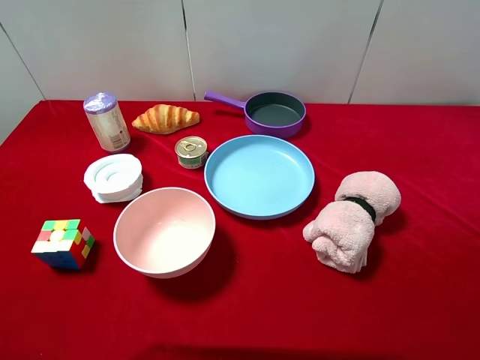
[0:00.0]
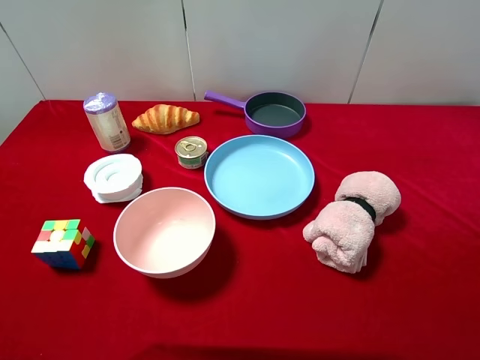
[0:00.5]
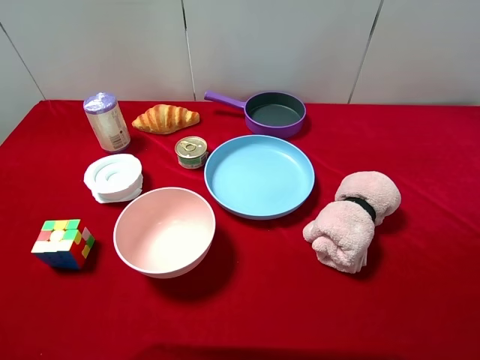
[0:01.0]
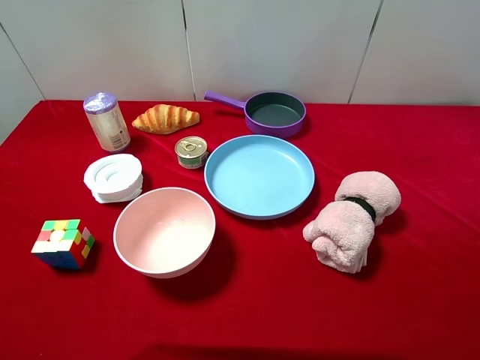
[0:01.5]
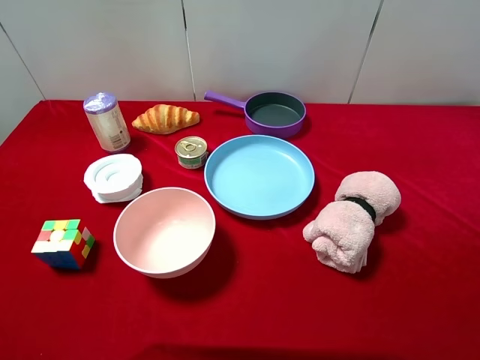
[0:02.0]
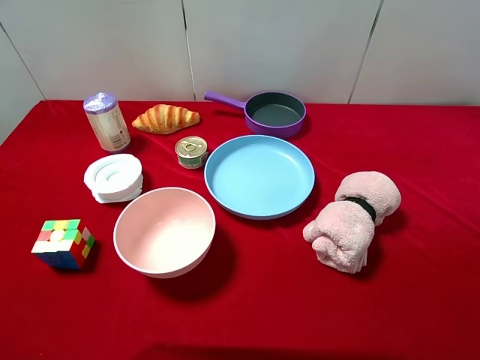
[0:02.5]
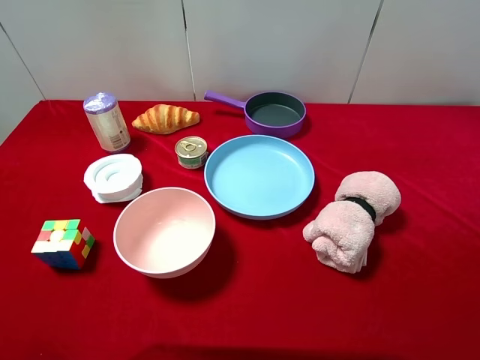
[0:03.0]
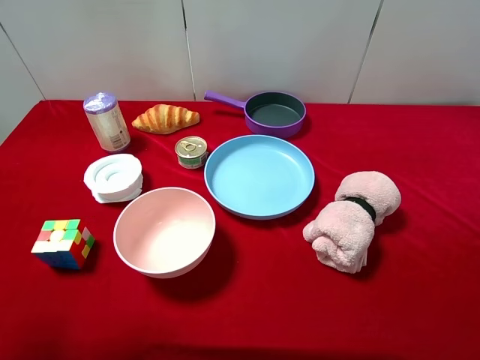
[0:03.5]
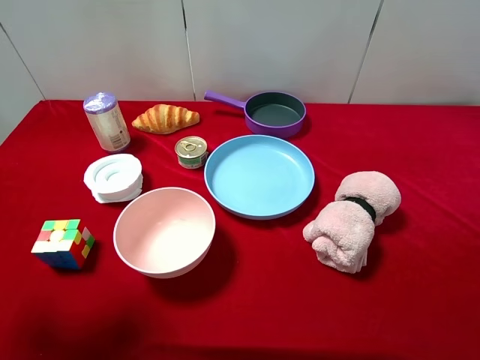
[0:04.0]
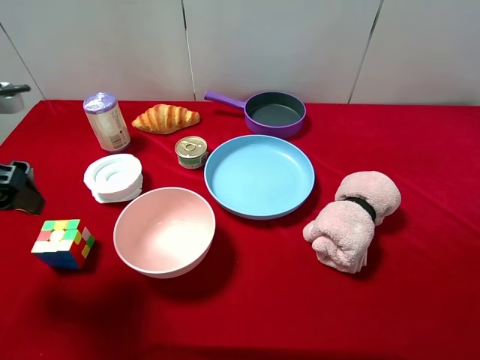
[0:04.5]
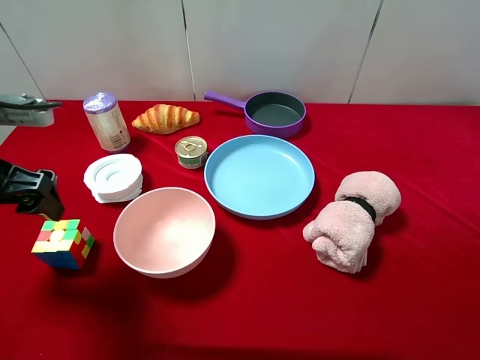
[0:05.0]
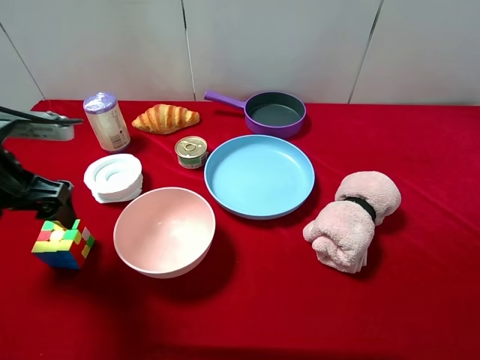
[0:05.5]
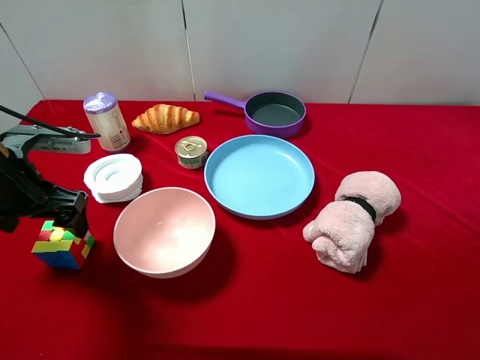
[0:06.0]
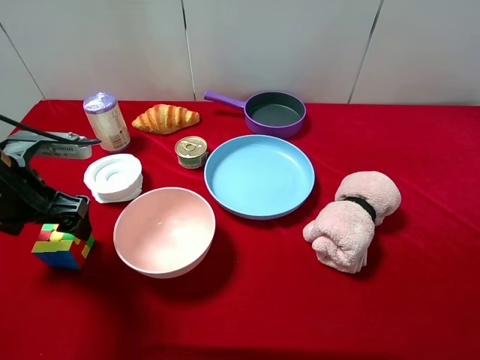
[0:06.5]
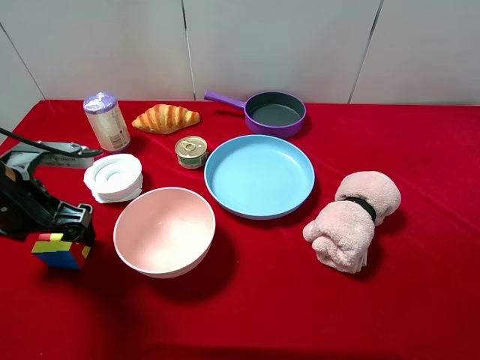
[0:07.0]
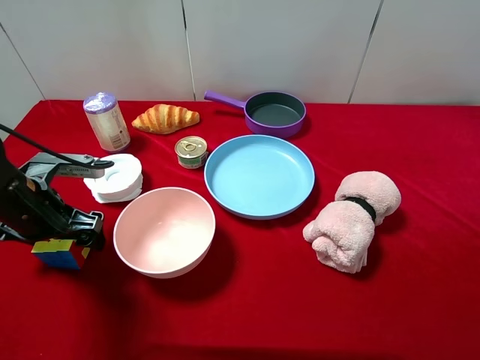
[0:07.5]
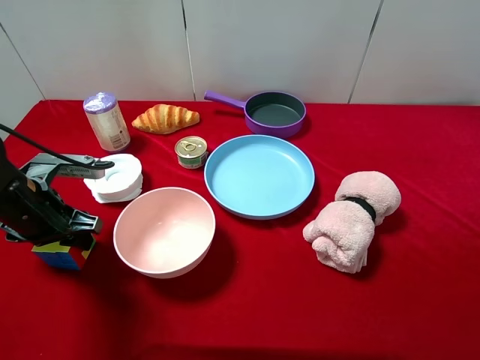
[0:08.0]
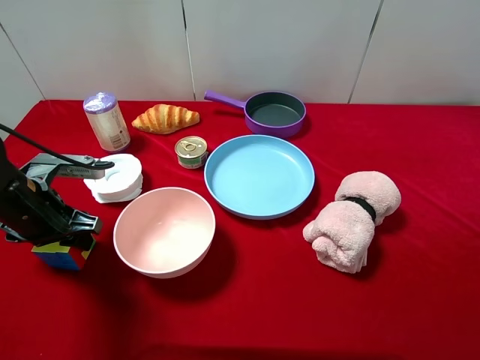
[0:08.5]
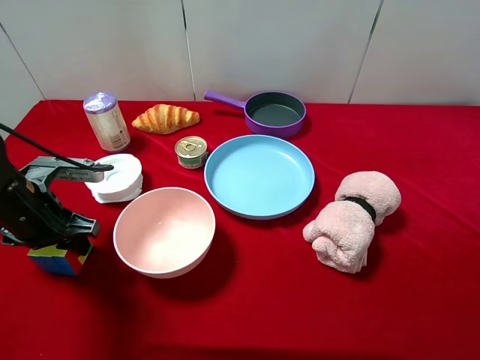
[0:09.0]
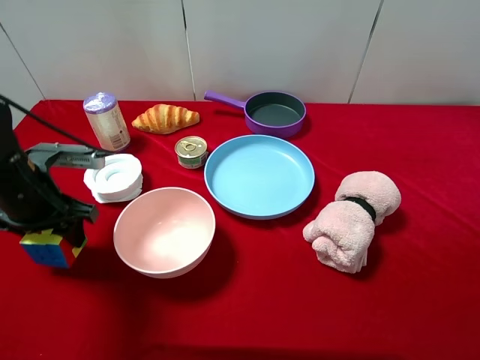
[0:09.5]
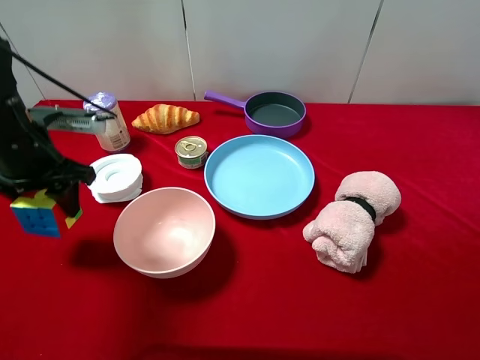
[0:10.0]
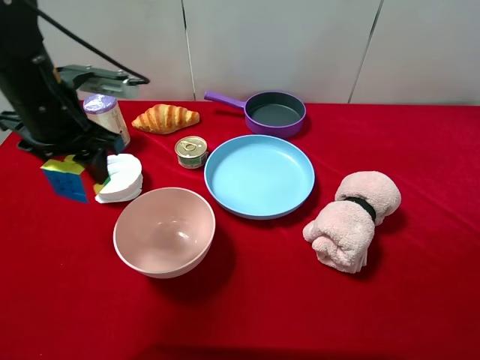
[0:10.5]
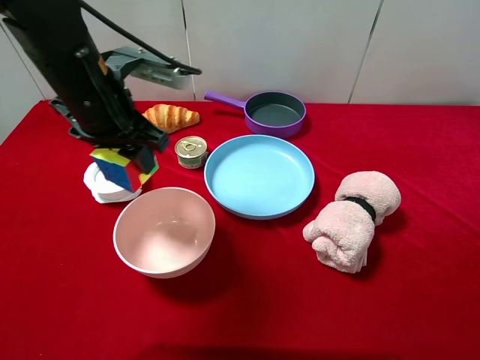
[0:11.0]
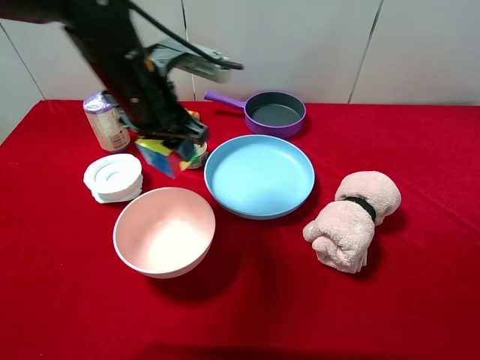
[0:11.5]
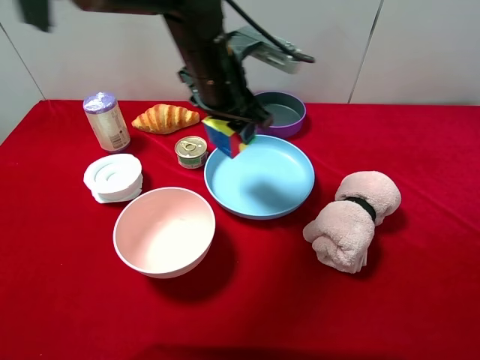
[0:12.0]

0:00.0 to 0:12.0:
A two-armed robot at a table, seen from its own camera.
Task of the whole recording: pick up an item with a gripper and place it in a random container on the desktop.
0:00.0 to 0:02.0: Both grippers stay put.
0:02.0 to 0:04.0: The left gripper is displaced forward by roughly 15 cm.
0:04.0 to 0:06.0: The left gripper heads downward and forward, covering some 15 cm.
0:06.0 to 0:08.0: The left gripper moves downward, about 5 cm, and closes.
0:08.0 to 0:10.0: The left gripper shifts some 5 cm upward.
0:10.0 to 0:12.0: The left gripper is displaced to the right by roughly 25 cm.

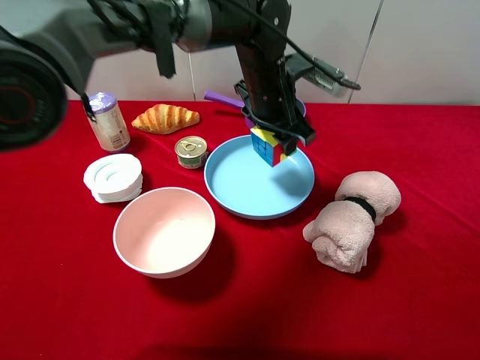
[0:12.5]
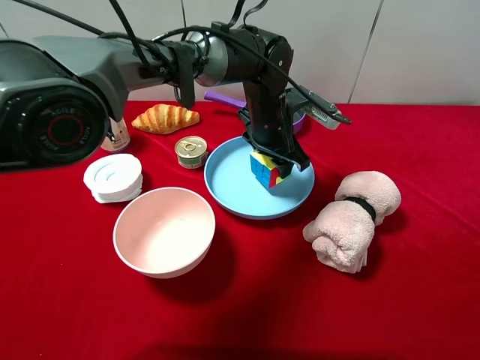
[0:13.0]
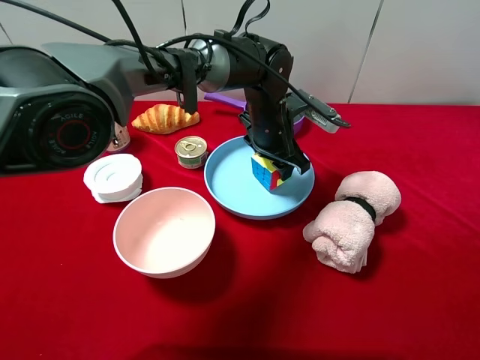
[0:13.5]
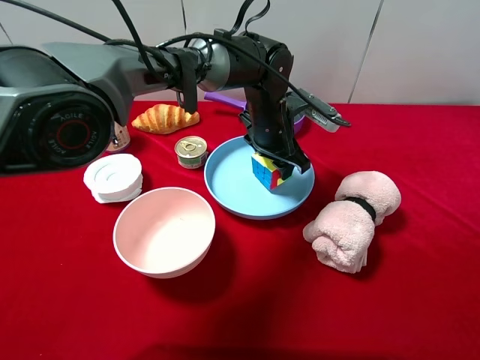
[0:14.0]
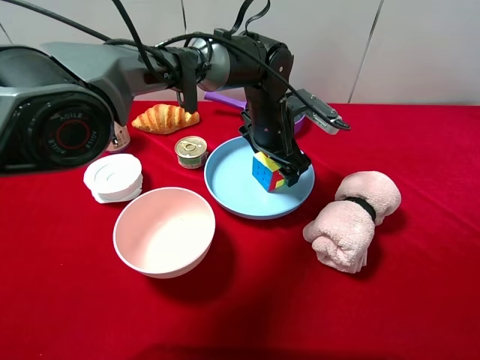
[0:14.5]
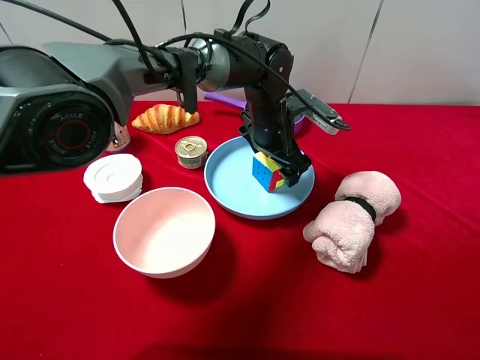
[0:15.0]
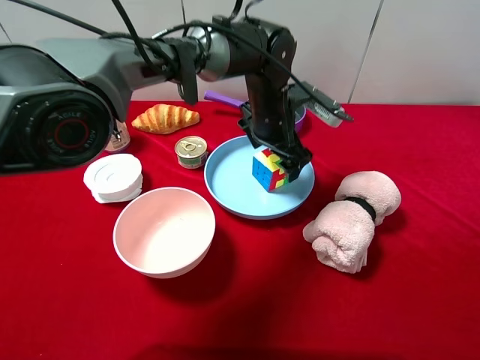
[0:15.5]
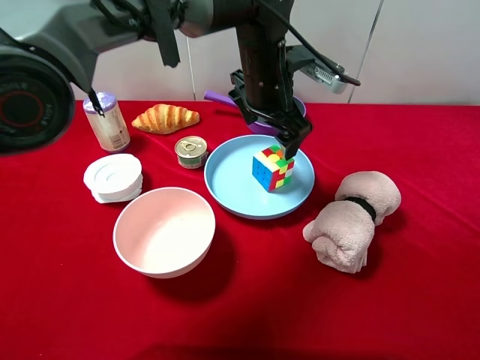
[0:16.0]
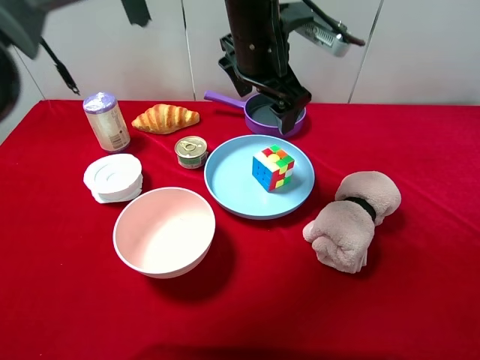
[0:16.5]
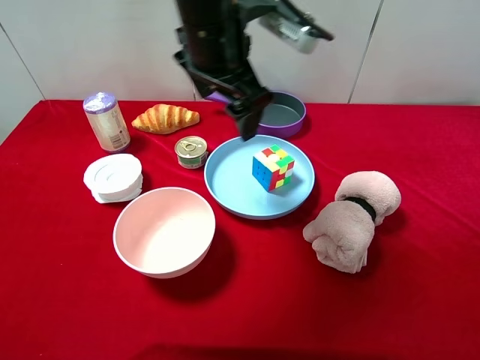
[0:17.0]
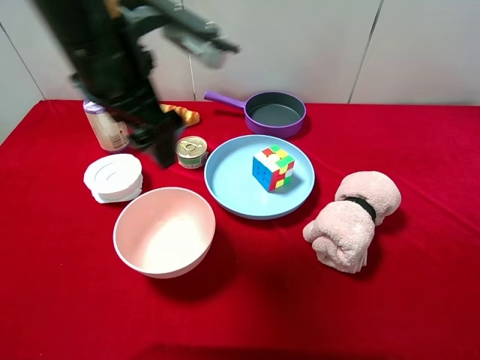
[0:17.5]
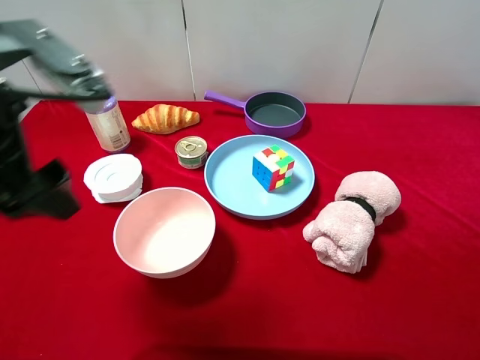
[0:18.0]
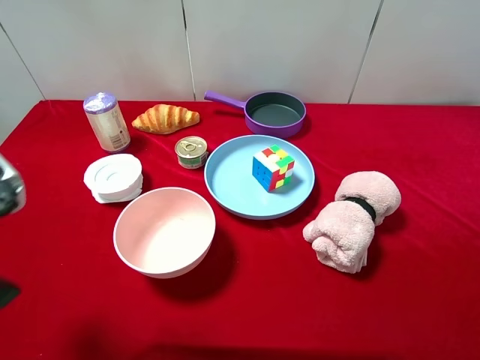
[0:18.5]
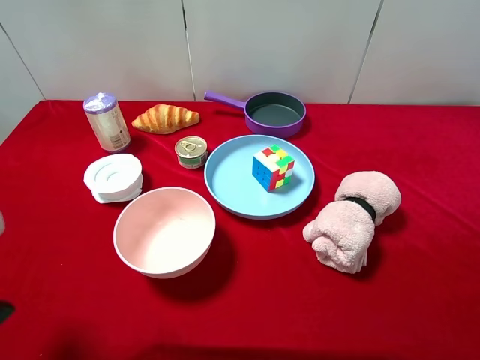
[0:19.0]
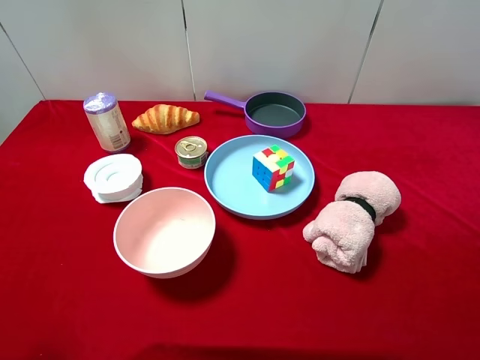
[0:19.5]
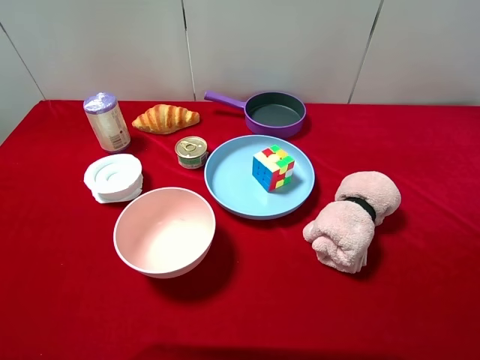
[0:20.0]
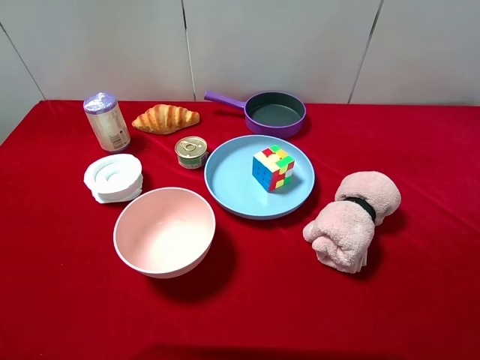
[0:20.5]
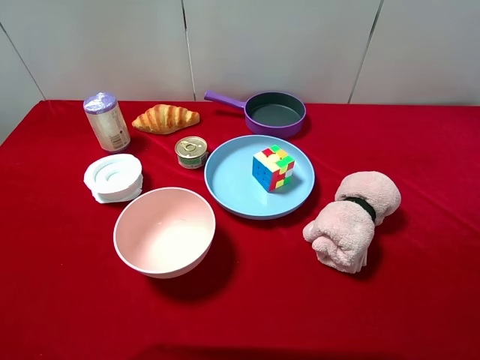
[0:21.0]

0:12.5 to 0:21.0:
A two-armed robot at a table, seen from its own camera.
Task of the whole recording: pick up an item with a gripper and place it in a random container on the desktop.
0:12.5 to 0:14.5: The left gripper moves downward, approximately 5 cm, and opens up.
0:14.5 to 0:16.5: The left gripper moves upward, some 15 cm.
0:16.5 to 0:19.0: The left gripper shifts some 40 cm to the left and backward.

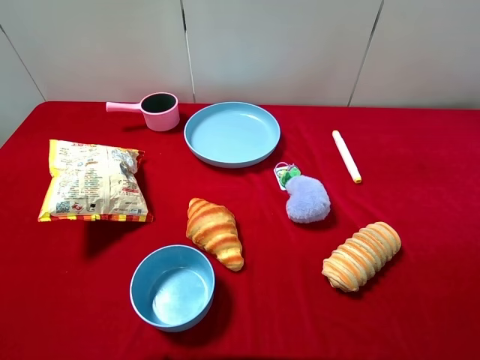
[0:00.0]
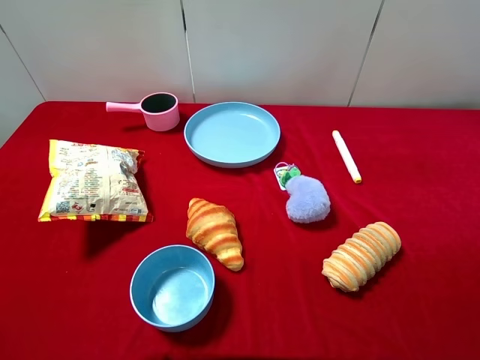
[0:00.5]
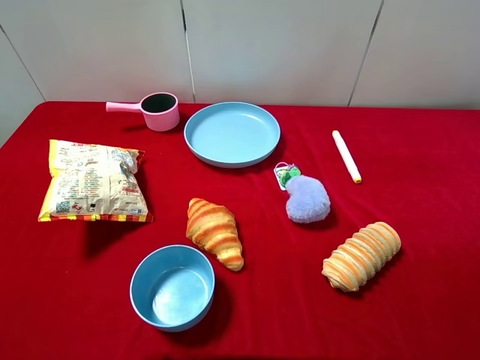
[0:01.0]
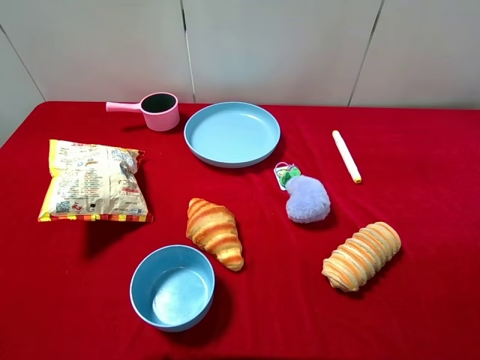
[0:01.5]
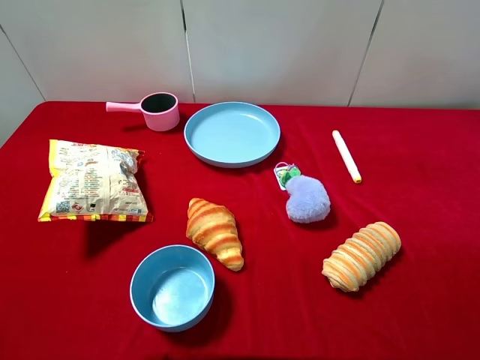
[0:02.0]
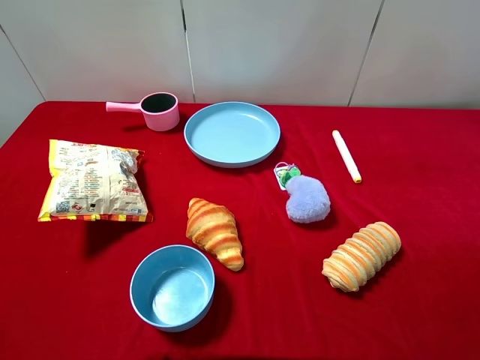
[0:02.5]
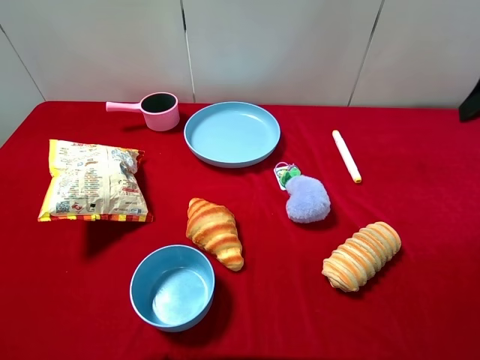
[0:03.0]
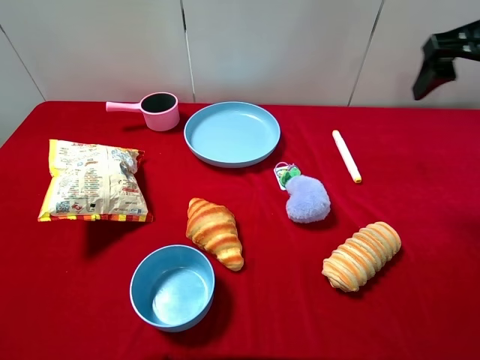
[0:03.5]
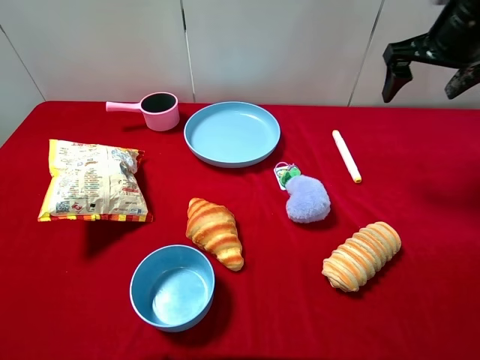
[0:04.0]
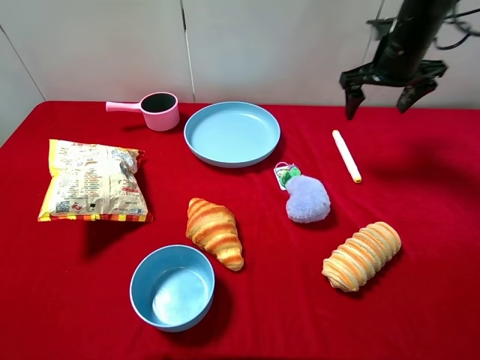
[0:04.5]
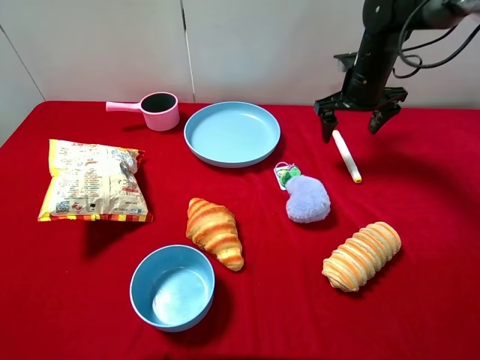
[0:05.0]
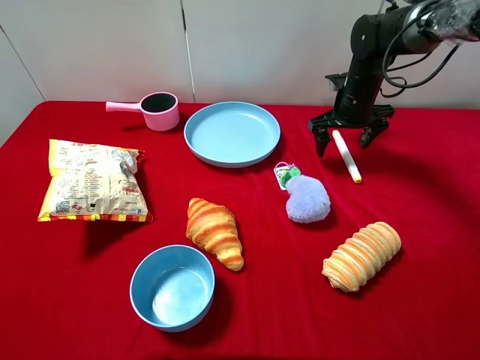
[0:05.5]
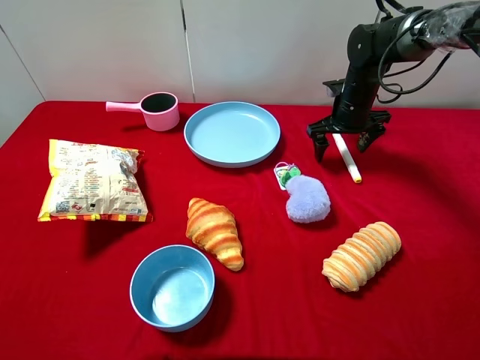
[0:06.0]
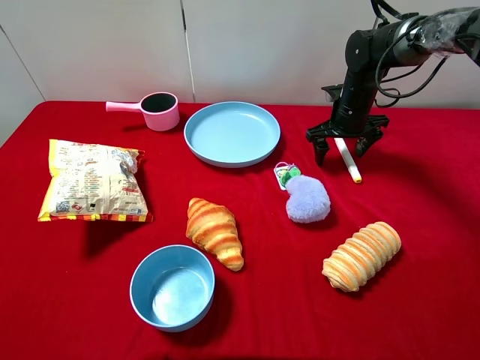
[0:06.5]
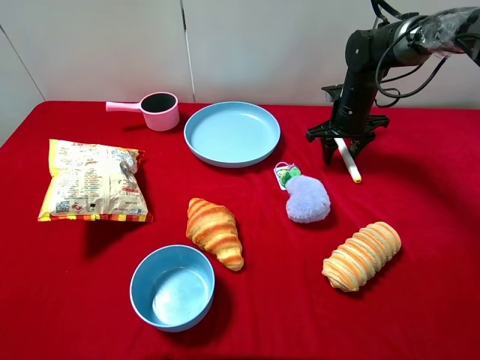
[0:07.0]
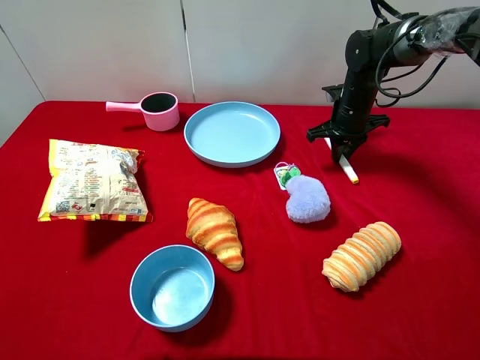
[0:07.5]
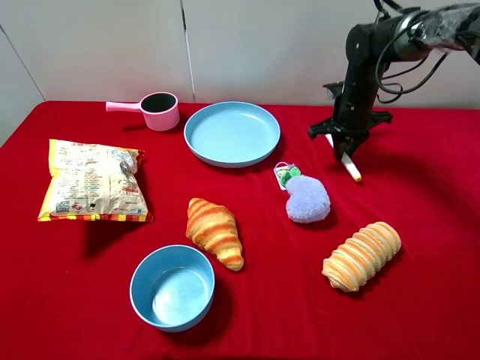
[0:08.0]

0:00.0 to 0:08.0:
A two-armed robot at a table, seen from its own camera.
Task of the whole recording: pick up an item with a gripper and place it in a random container on the desktop.
0:02.0 to 0:04.0: The right gripper shifts some 30 cm forward.
0:04.0 to 0:06.0: The right gripper moves downward and forward, approximately 20 cm.
0:06.0 to 0:08.0: The right gripper closes up.
